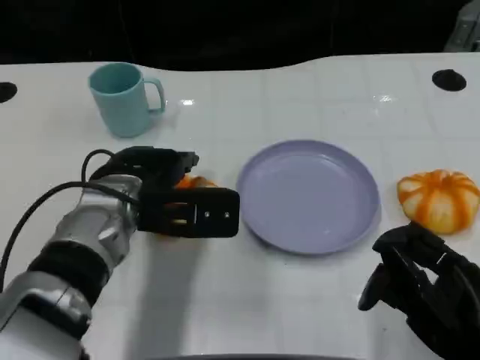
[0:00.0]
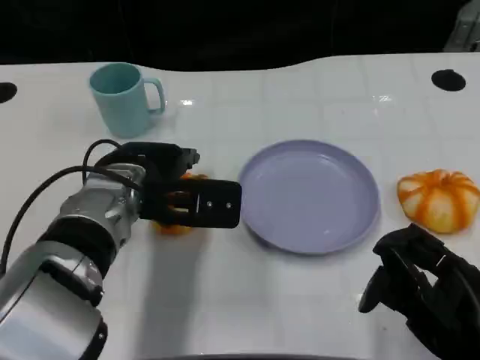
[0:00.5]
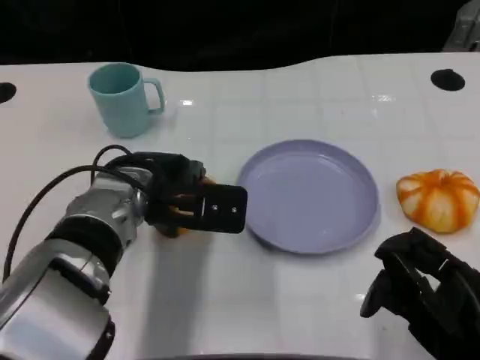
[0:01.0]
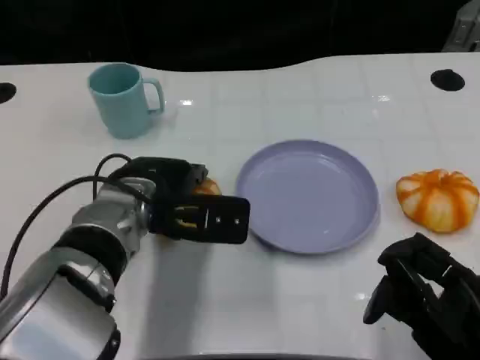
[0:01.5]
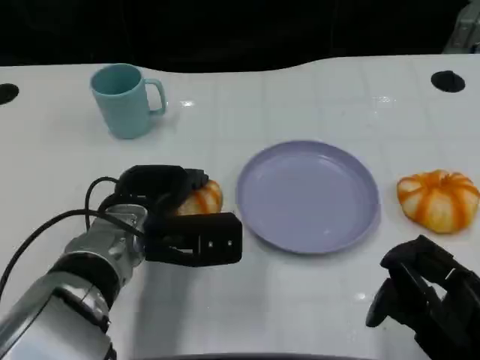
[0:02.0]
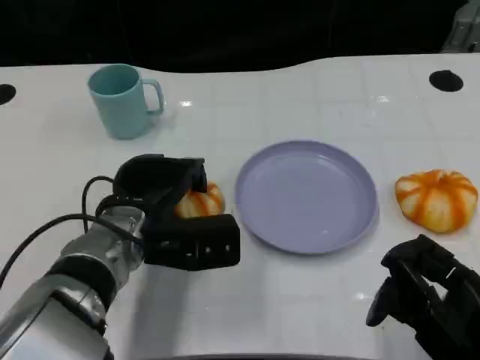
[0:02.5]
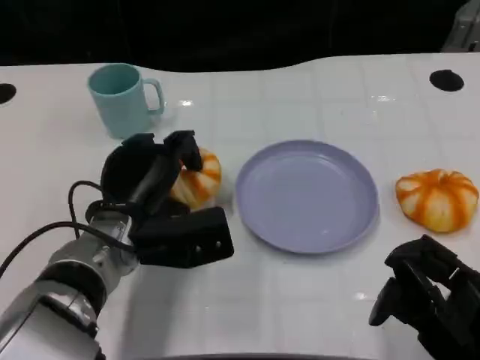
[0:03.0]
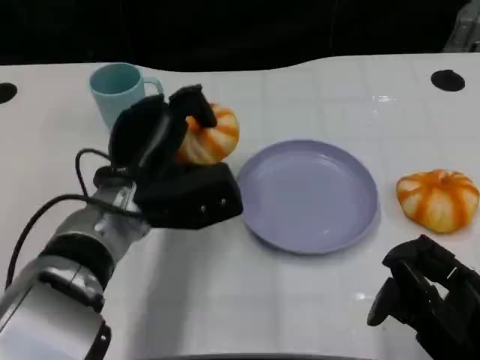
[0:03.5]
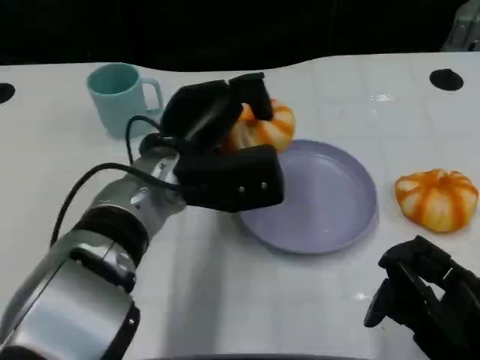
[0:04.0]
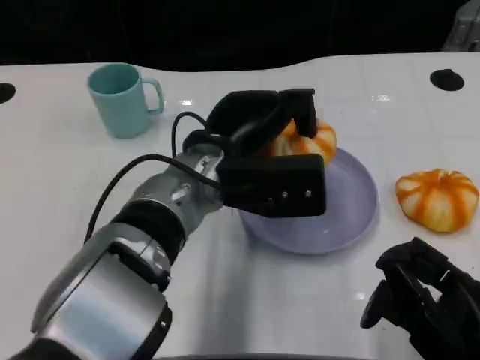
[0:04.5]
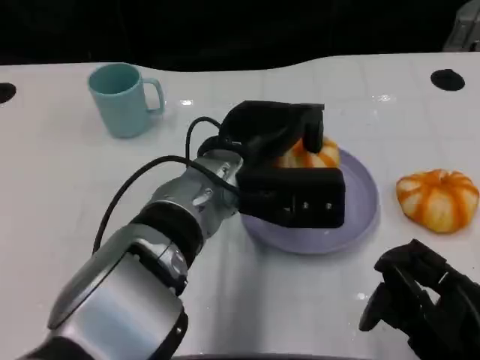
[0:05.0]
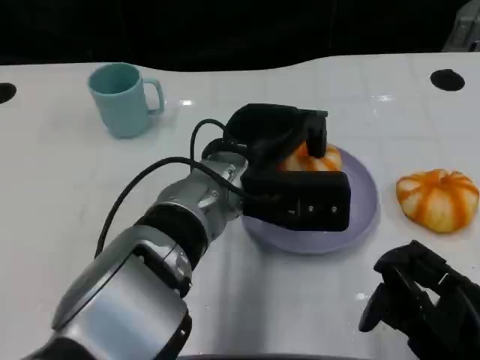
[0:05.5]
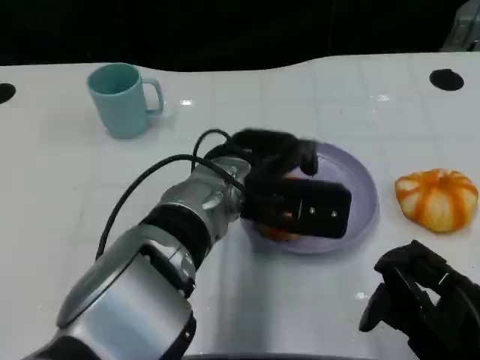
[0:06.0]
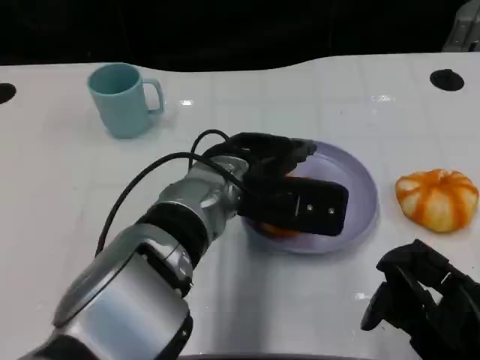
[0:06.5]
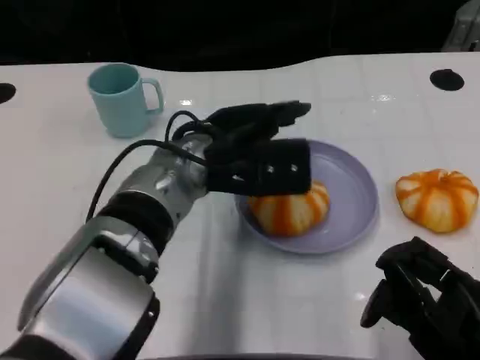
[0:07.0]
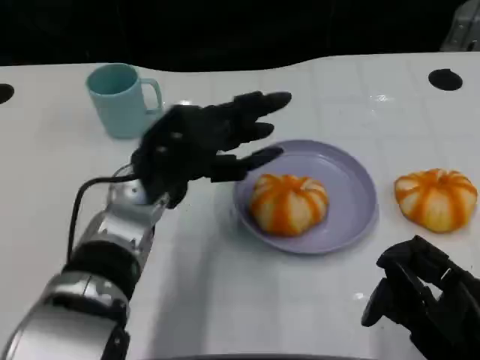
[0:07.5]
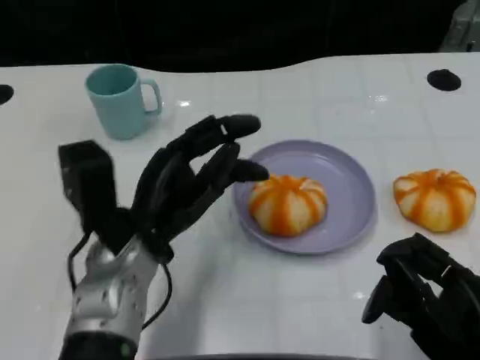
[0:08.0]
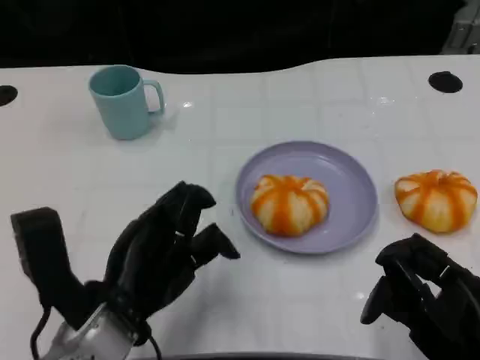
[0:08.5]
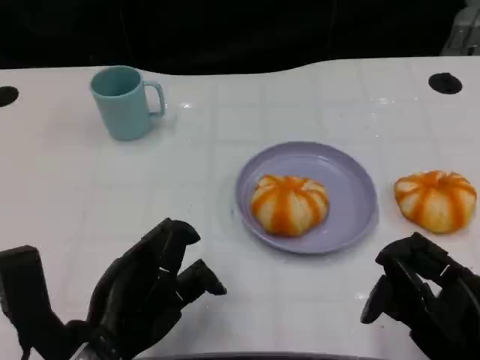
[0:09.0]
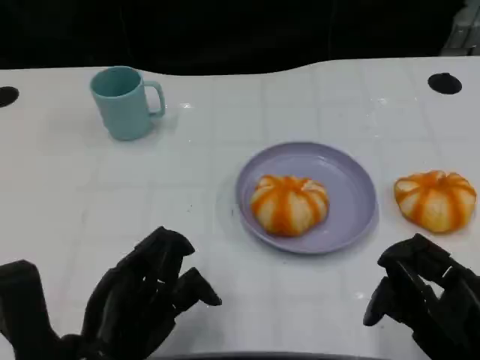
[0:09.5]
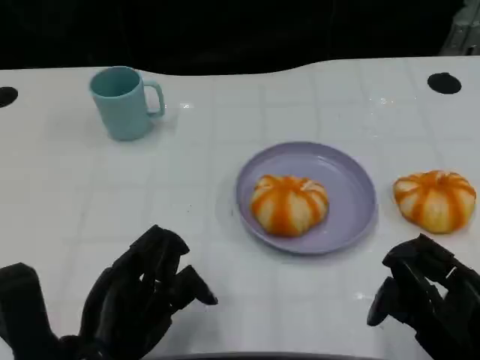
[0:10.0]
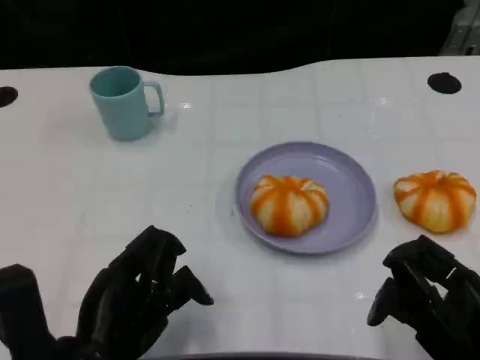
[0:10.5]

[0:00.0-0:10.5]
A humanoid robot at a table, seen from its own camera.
Task of the whole recording: Grasp the bread from the table and place it into the plate.
0:00.0 to 0:02.0: The hands make only small movements.
0:02.0 to 0:04.0: The left hand goes roughly 5 cm upward.
0:06.5 to 0:08.5: The left hand is displaced to the left and backward by some 15 cm.
0:08.5 to 0:10.5: The hands make only small movements.

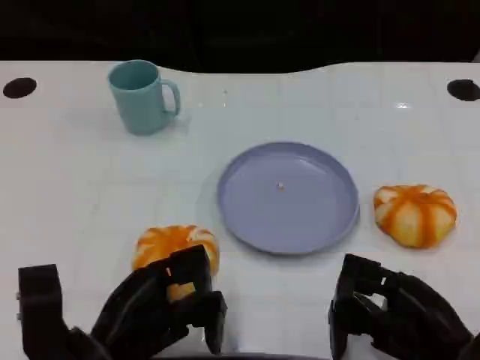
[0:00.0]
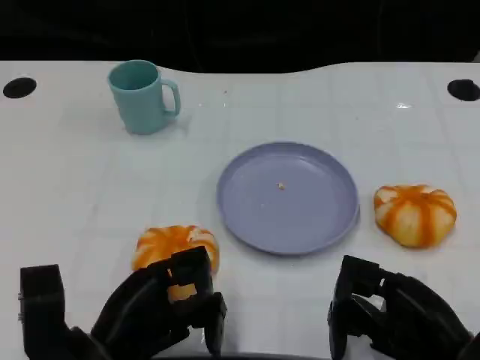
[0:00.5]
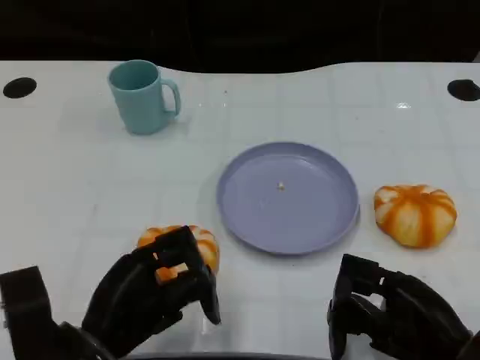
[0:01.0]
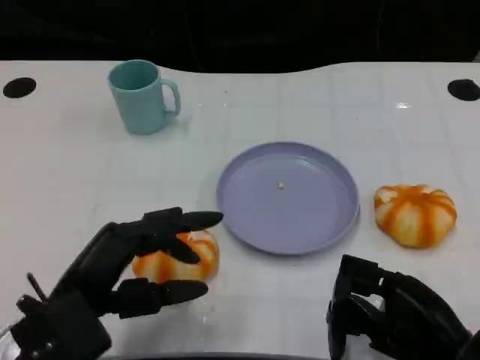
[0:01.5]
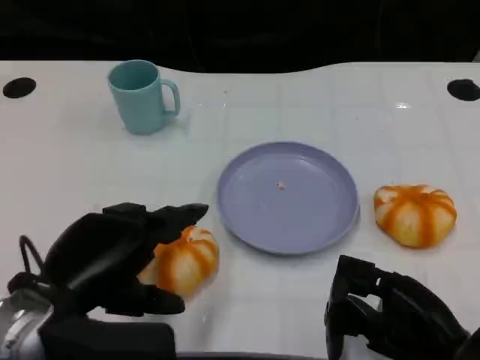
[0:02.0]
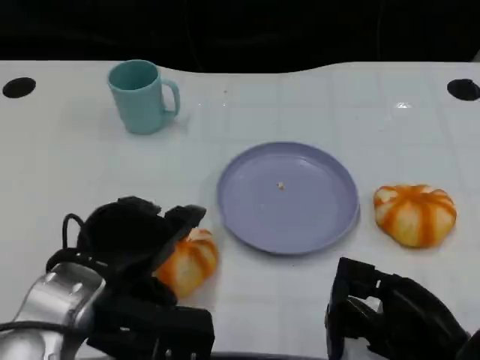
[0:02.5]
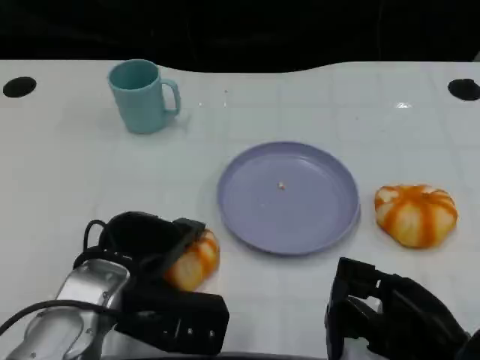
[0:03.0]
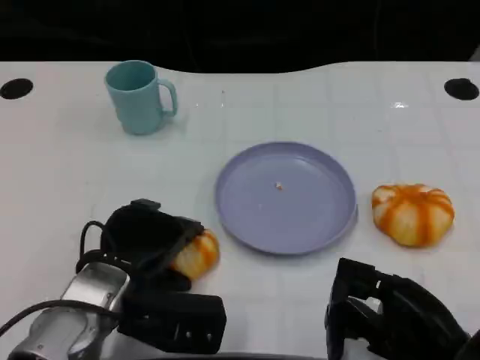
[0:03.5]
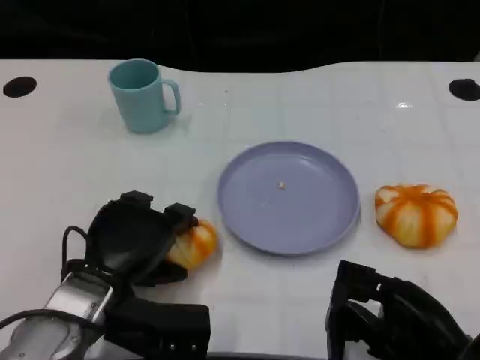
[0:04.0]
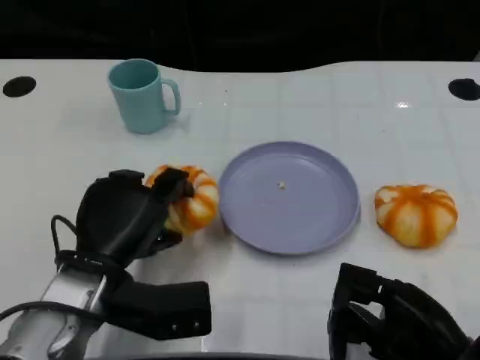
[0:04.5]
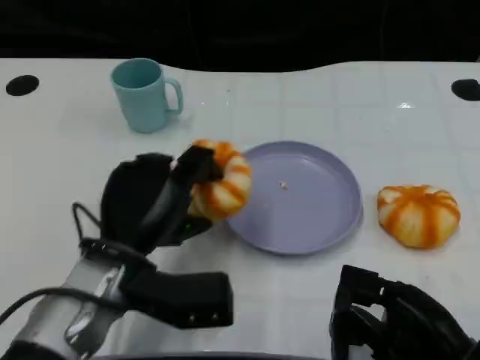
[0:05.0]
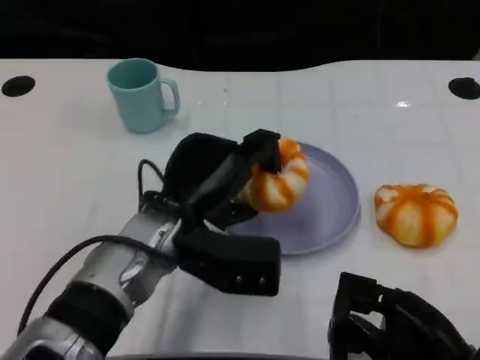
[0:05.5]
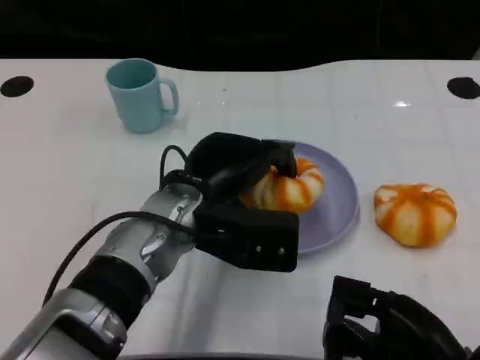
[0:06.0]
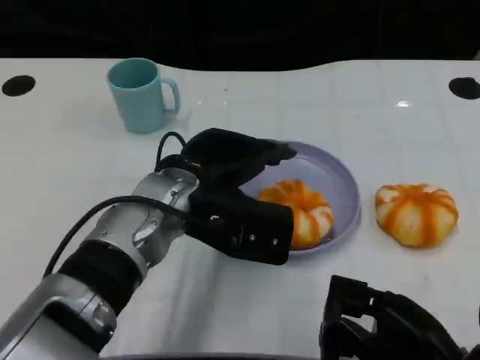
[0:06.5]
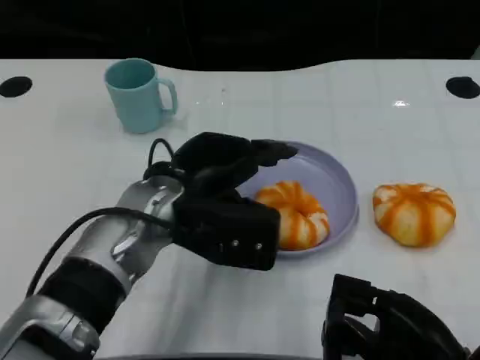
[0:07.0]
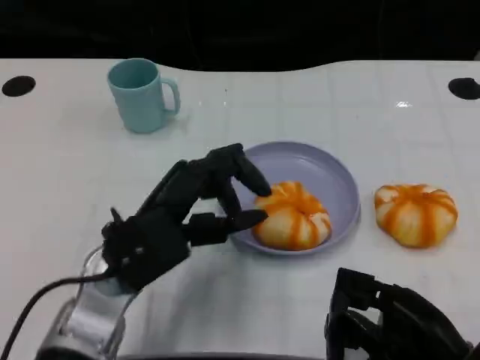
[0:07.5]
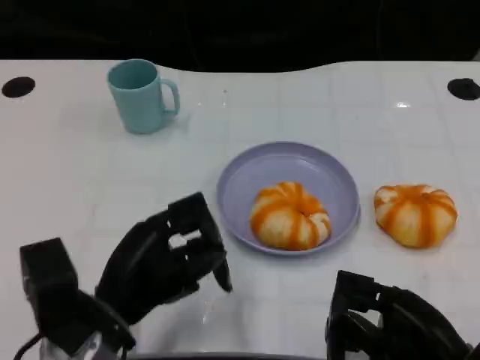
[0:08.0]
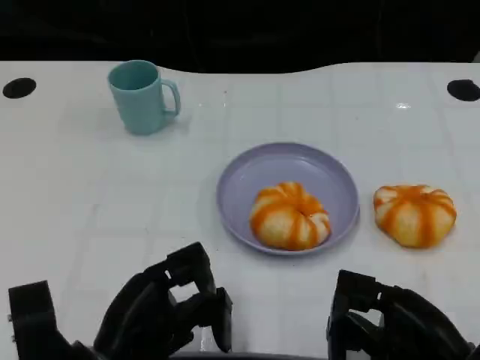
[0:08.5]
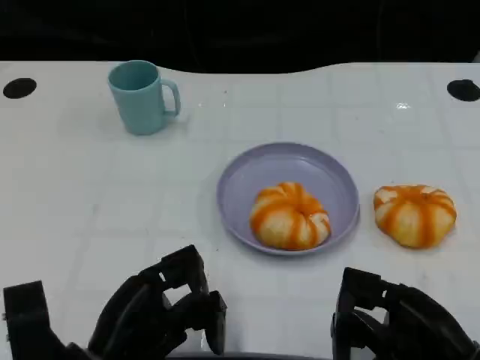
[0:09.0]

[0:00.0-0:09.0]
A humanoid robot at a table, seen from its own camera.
Task of the whole recording: Grasp the bread from the table and place it into the plate.
0:00.0 to 0:02.0: The left hand shifts some 10 cm upward.
0:02.0 to 0:04.5: The left hand moves downward and forward, roughly 10 cm.
0:04.5 to 0:07.0: The left hand shifts approximately 10 cm to the right and upward.
0:07.0 to 0:09.0: The left hand is displaced backward, downward and to the left by about 15 cm.

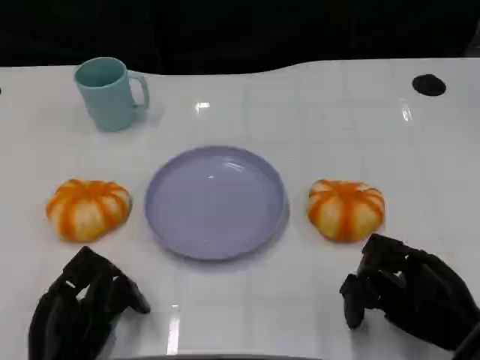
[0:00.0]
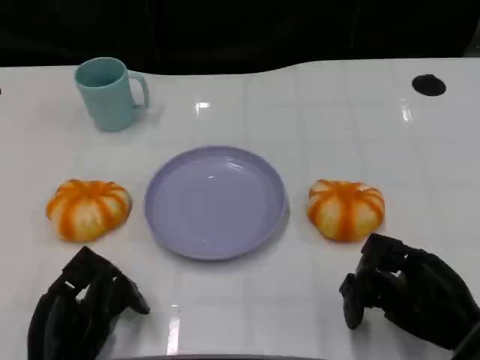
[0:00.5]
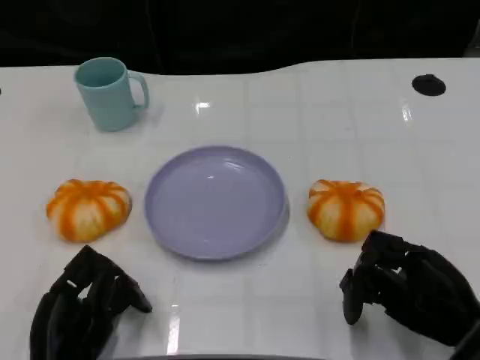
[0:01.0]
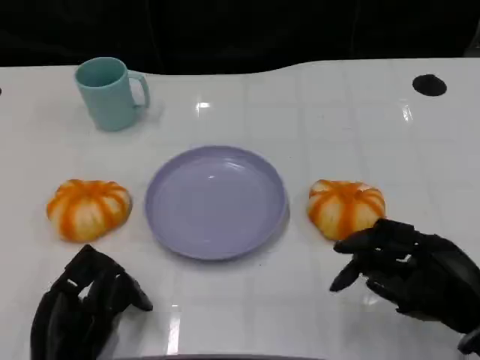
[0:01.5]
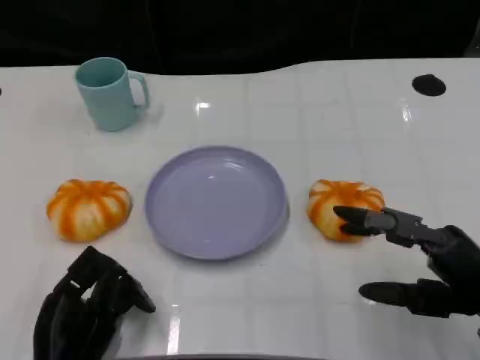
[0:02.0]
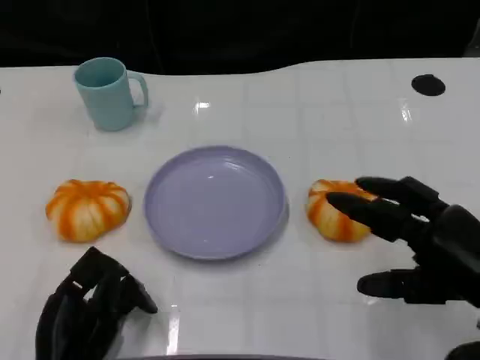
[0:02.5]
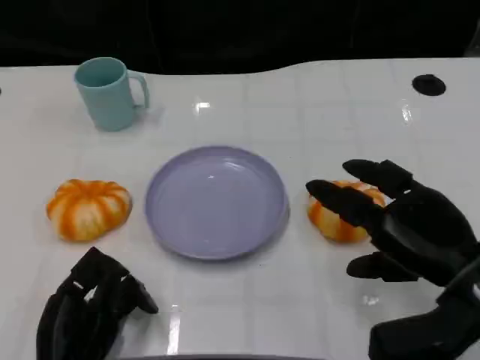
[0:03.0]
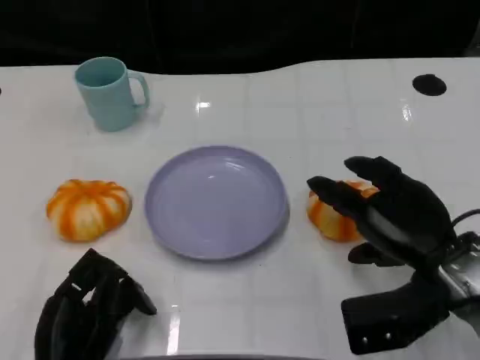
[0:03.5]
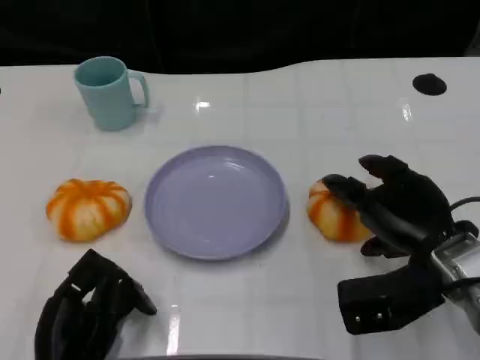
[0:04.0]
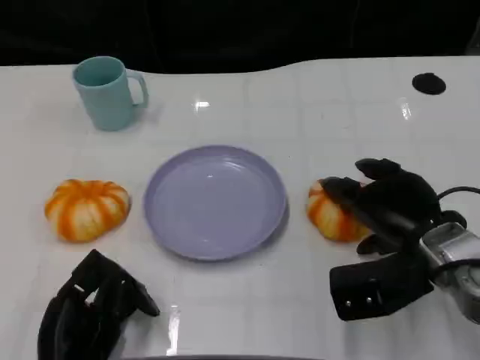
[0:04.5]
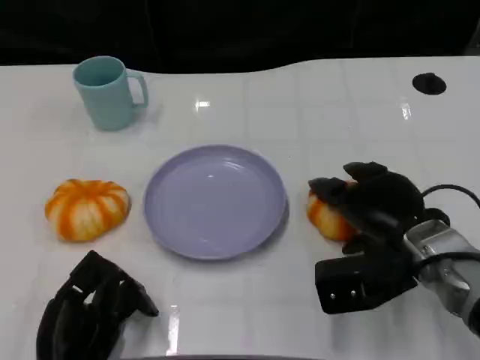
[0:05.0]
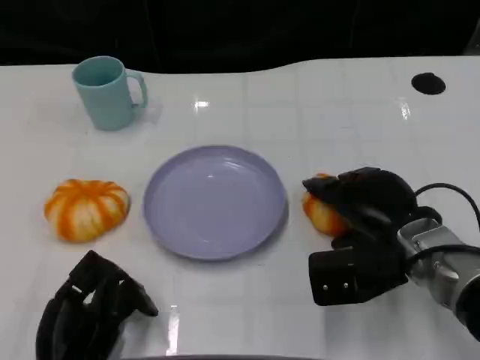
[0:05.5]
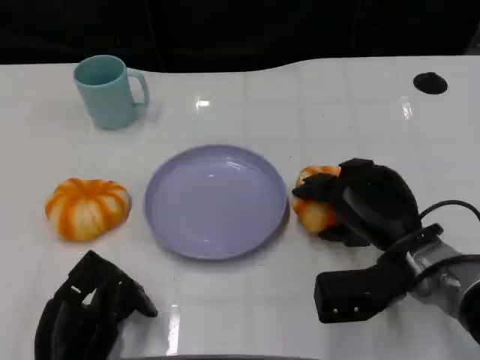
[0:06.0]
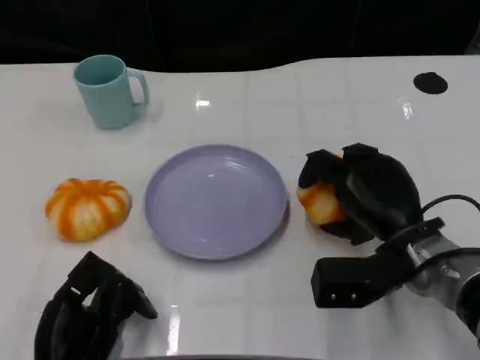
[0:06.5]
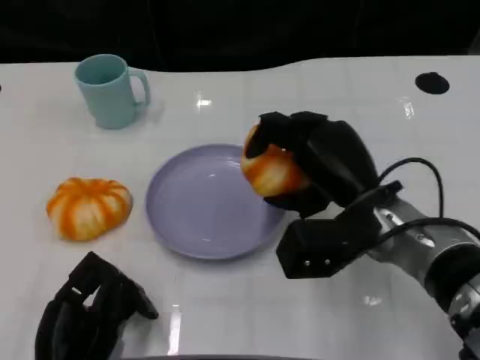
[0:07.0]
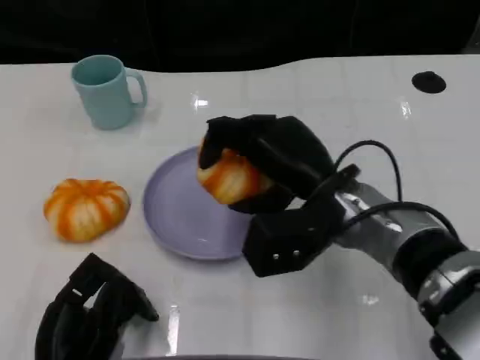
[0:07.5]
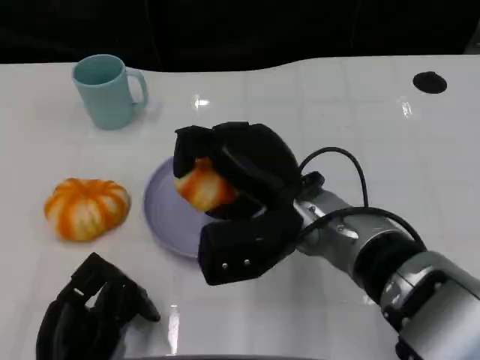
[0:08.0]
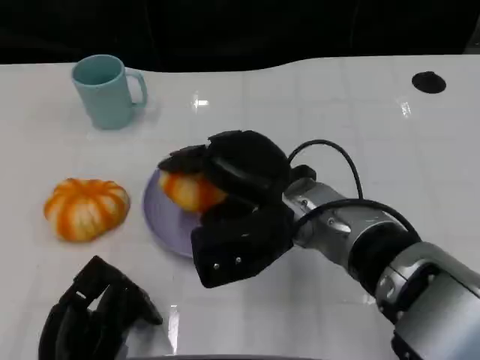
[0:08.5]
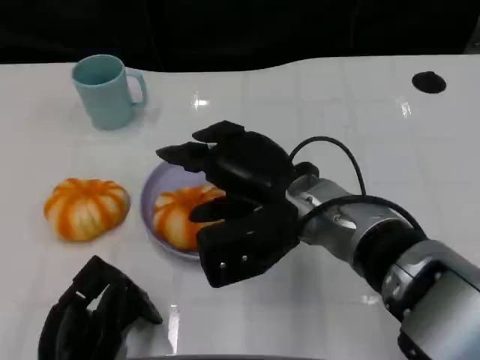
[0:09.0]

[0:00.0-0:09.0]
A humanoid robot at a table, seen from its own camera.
Task of the whole recording: Grasp the bread from the table and place it into the plate.
0:00.0 to 0:02.0: The right hand heads upward, covering approximately 5 cm.
0:02.0 to 0:04.5: The right hand shifts roughly 10 cm forward and to the left.
0:04.5 to 0:07.0: The right hand shifts approximately 5 cm to the left.
0:07.0 to 0:09.0: The right hand is displaced to the left by roughly 5 cm.
